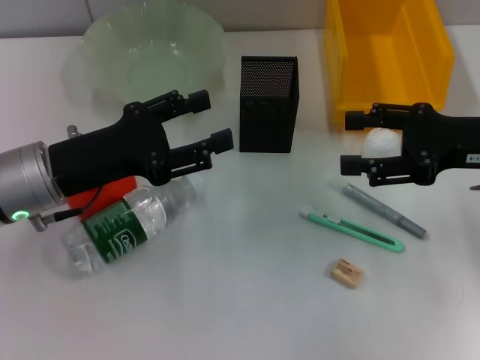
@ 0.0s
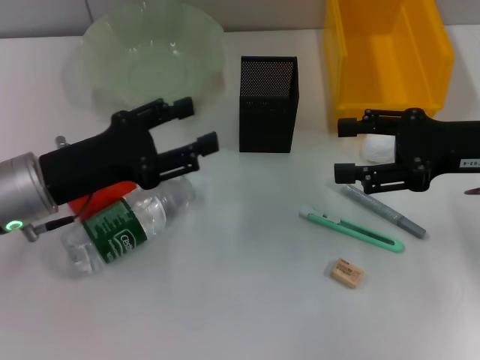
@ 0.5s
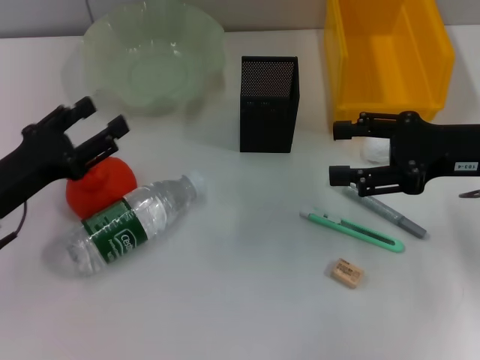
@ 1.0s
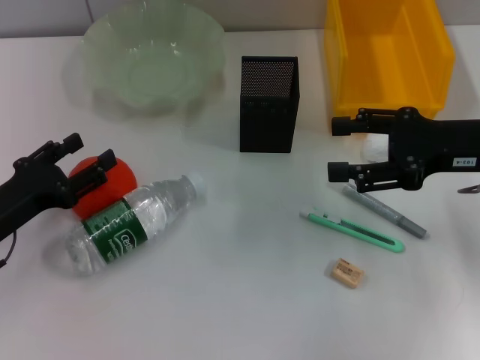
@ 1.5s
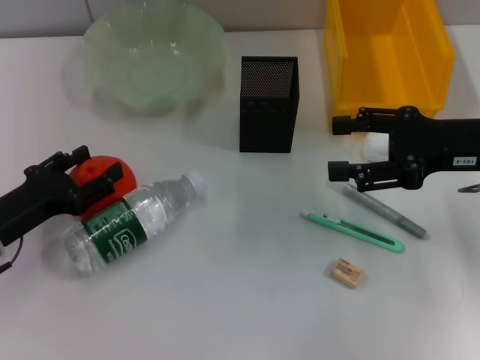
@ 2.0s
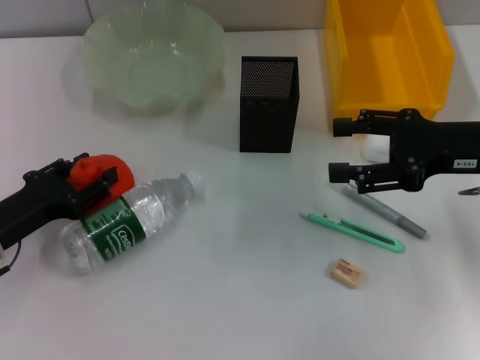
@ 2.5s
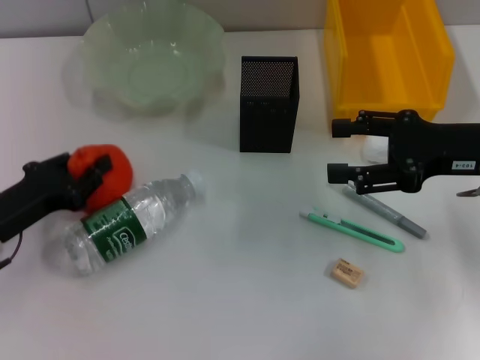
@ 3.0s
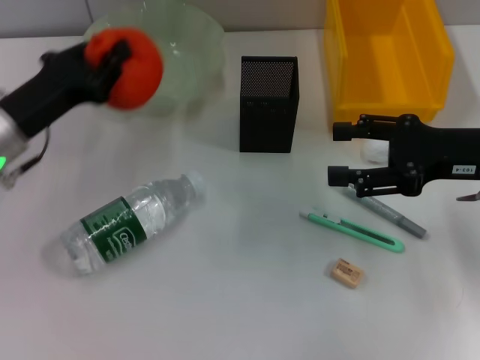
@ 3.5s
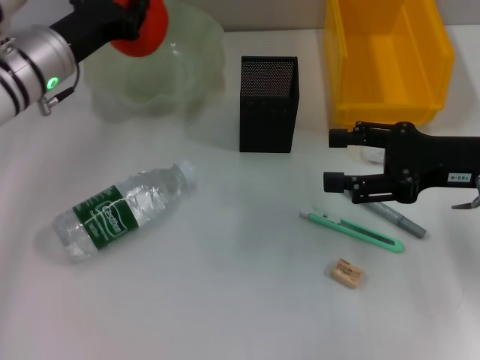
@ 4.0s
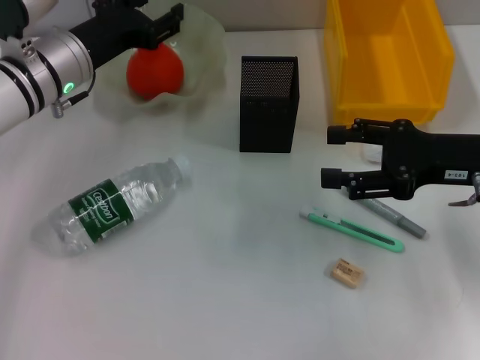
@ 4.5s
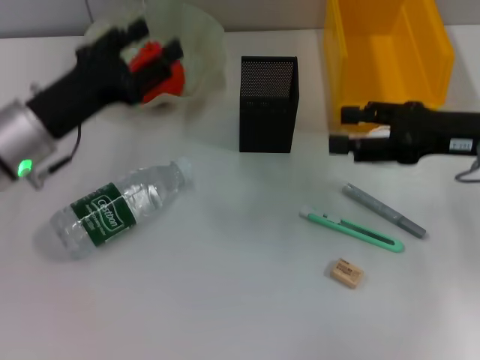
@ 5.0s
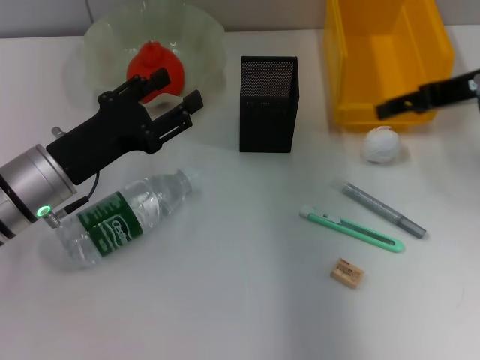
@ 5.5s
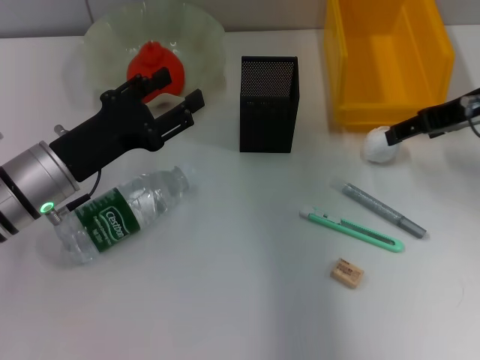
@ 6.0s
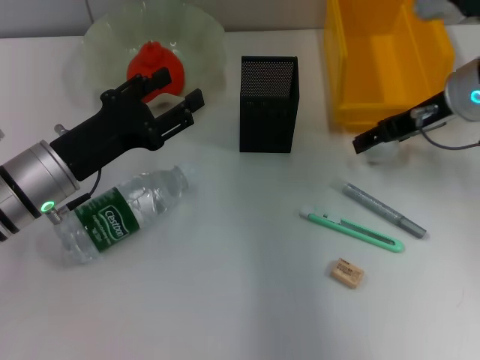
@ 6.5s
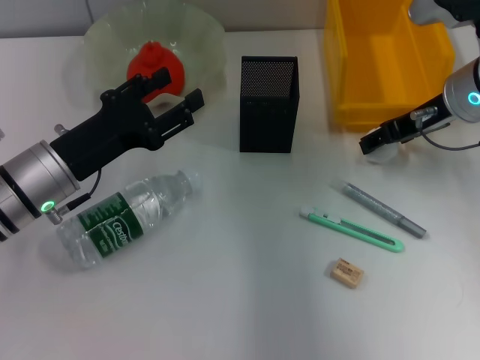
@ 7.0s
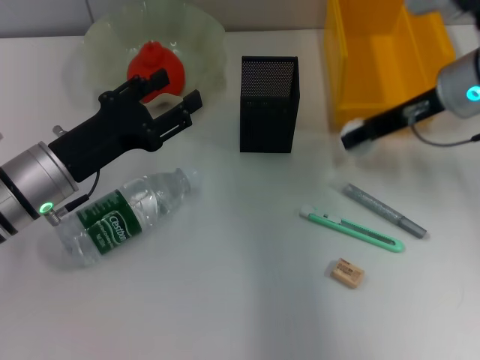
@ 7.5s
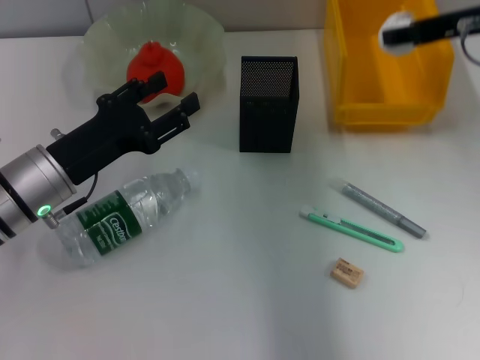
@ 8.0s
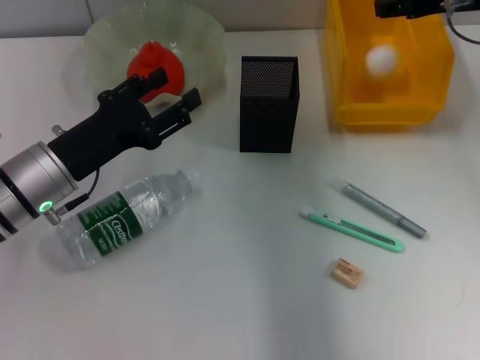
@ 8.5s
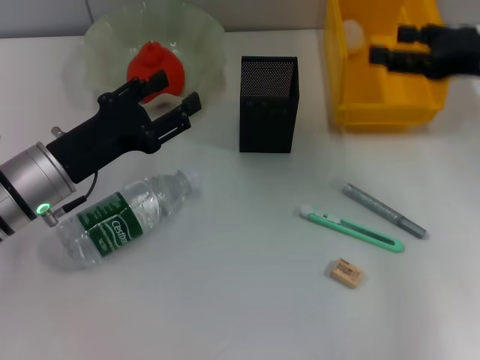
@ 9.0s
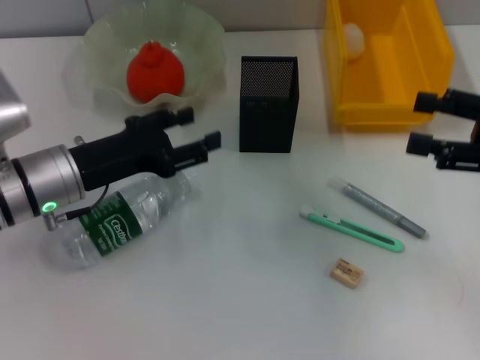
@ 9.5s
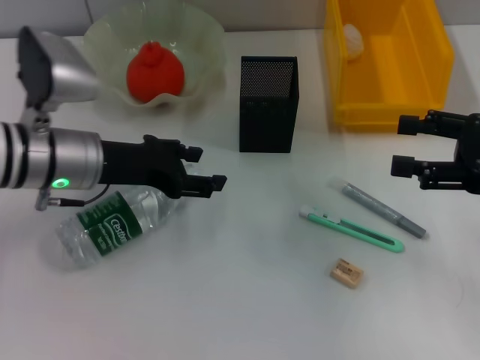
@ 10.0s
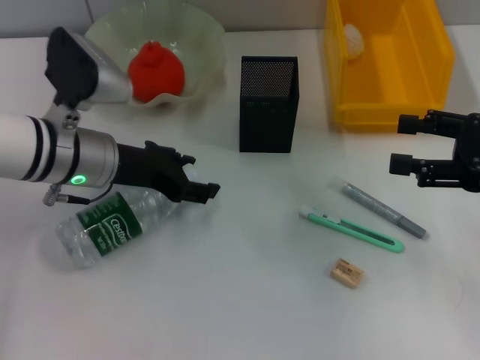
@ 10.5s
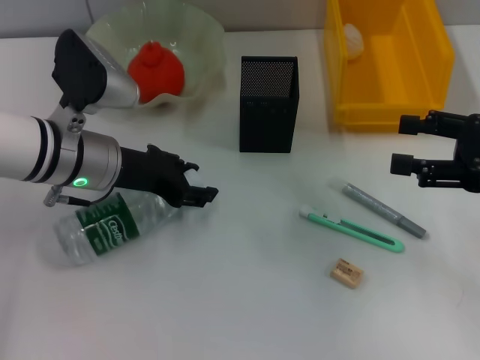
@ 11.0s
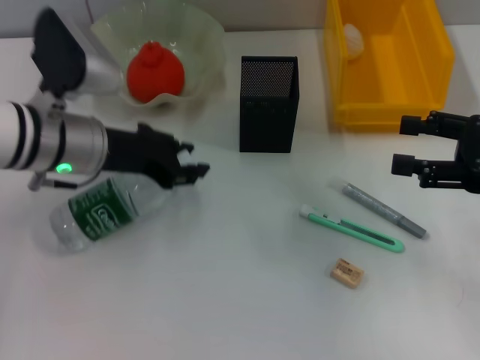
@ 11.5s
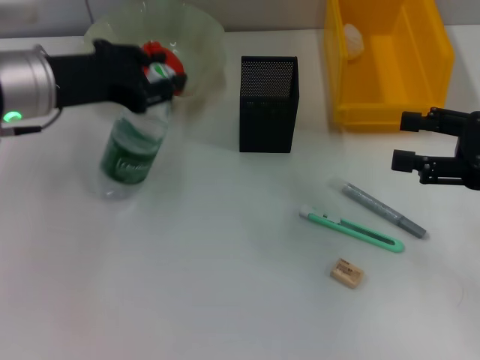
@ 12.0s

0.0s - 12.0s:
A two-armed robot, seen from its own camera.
Step, 0.0s - 2.5s: Grab the orange with the left hand.
Step, 3.0s - 4.0s: Place the orange into the fruit bowl with the left hand.
Step, 4.5s - 7.0s: Grab the paper ball with the right hand.
Step, 7.5s - 8.5s: Place the paper ball into the trash can with the right hand.
Step, 9.0s - 11.0s: Grab the water bottle with the left hand.
0.0s - 2.0s: The left gripper shifts about 10 cm to the left and downward.
2.0s - 4.0s: The left gripper is displaced forward, upward and to the right by some 20 cm, and closes its fingers.
4.0s - 6.0s: The left gripper travels backward by approximately 10 cm, and opens up. Meanwhile the right gripper is displaced forward and upward by approximately 10 cm.
6.0s - 8.0s: The right gripper closes its fingers.
8.0s - 10.0s: The right gripper travels backward, downward and to the right by roughly 15 cm, and opens up; the left gripper moves about 5 cm.
10.0s - 12.0s: The left gripper heads upward, covering about 5 cm, and closes its fingers.

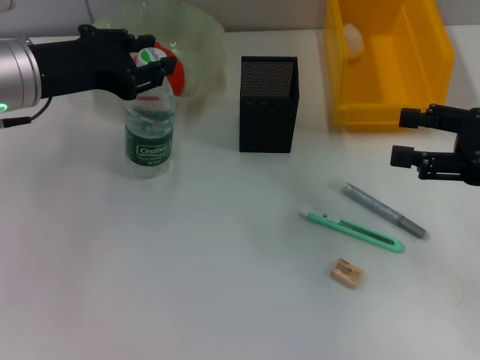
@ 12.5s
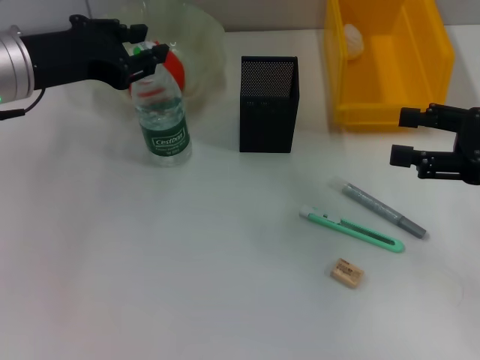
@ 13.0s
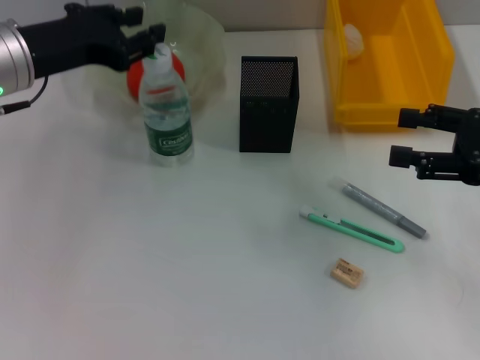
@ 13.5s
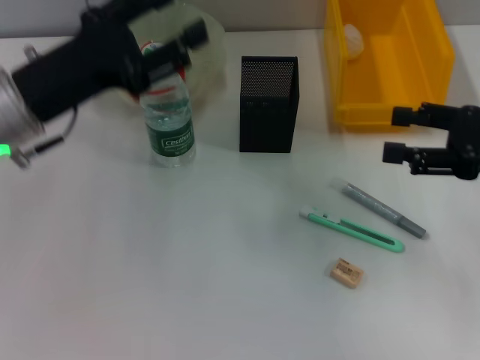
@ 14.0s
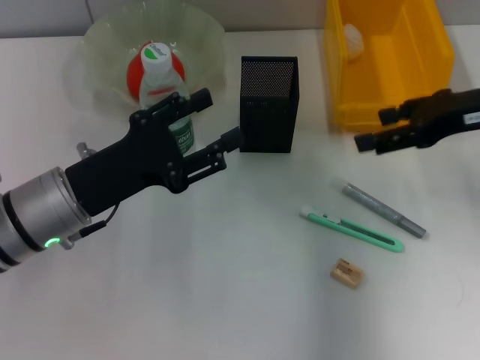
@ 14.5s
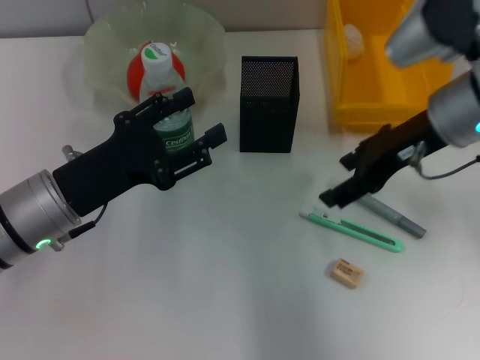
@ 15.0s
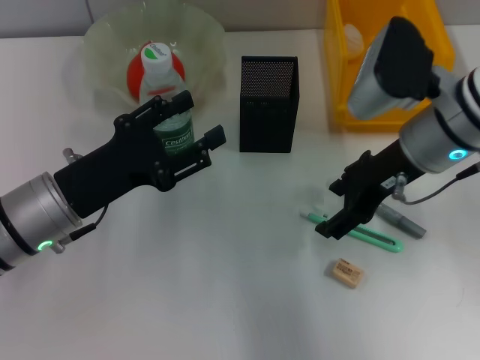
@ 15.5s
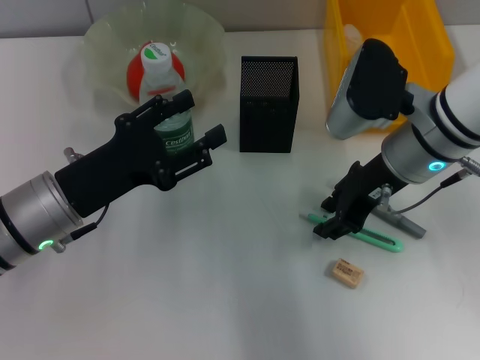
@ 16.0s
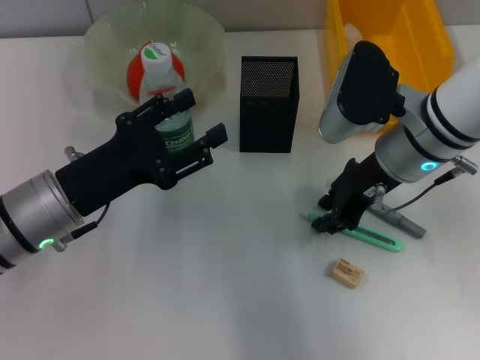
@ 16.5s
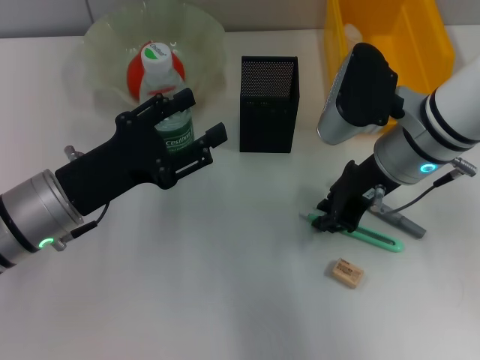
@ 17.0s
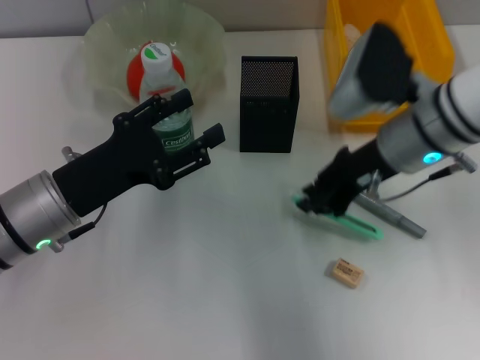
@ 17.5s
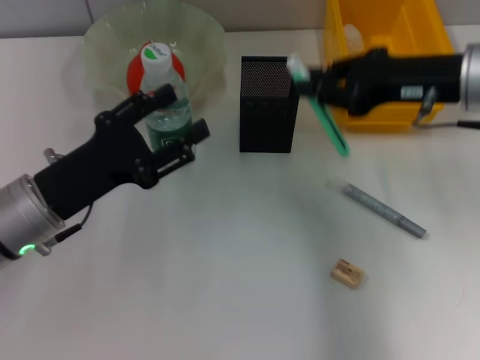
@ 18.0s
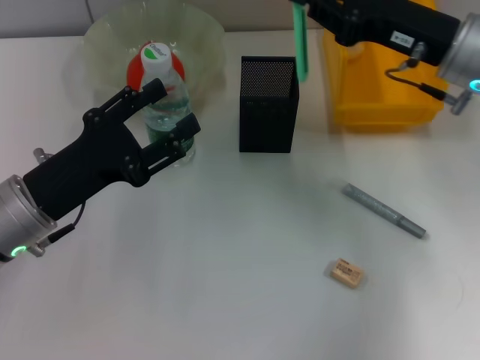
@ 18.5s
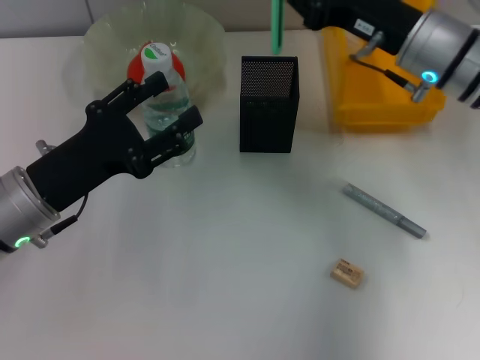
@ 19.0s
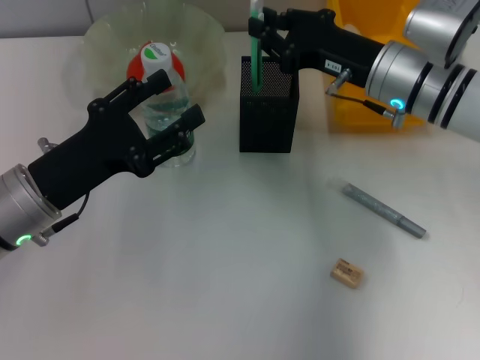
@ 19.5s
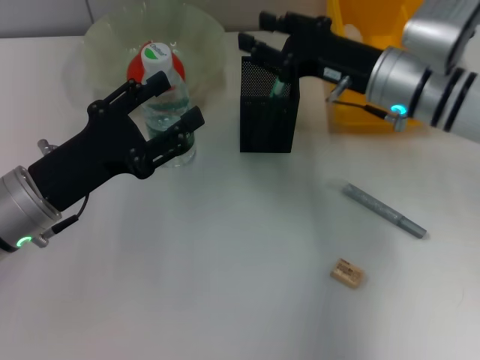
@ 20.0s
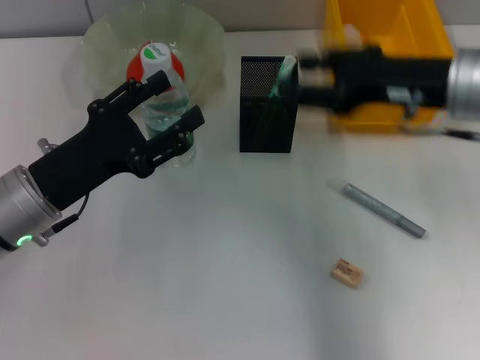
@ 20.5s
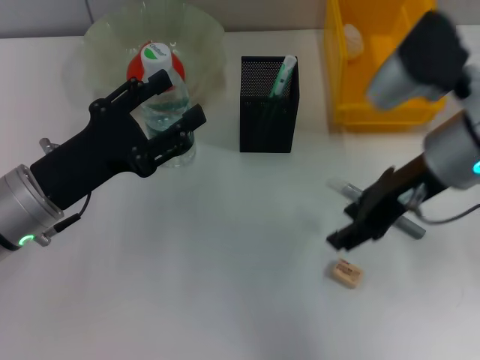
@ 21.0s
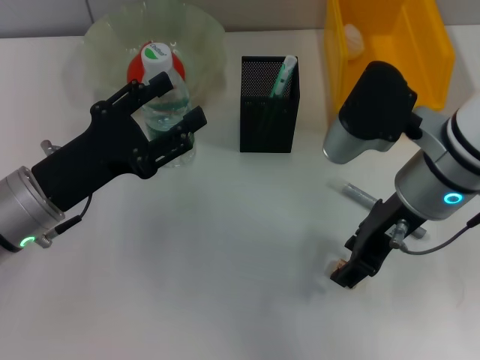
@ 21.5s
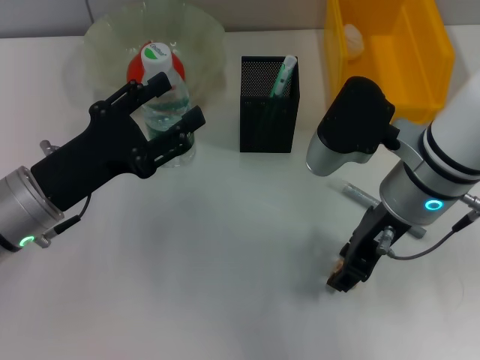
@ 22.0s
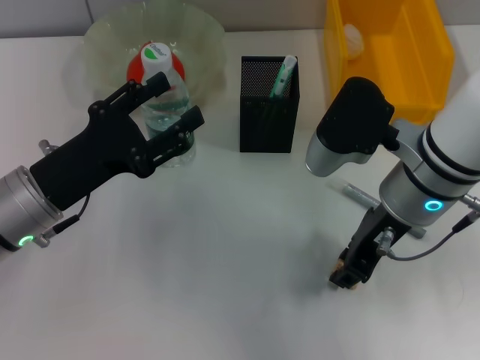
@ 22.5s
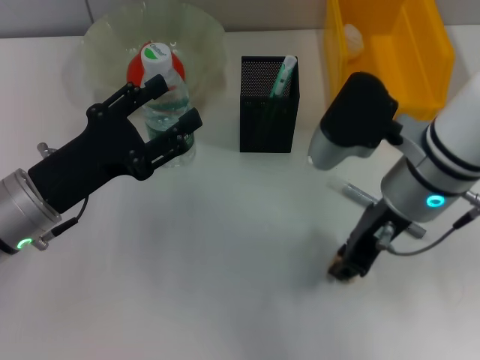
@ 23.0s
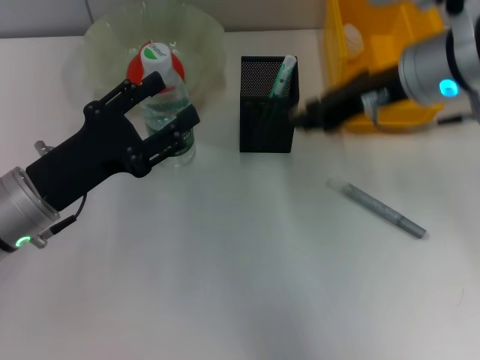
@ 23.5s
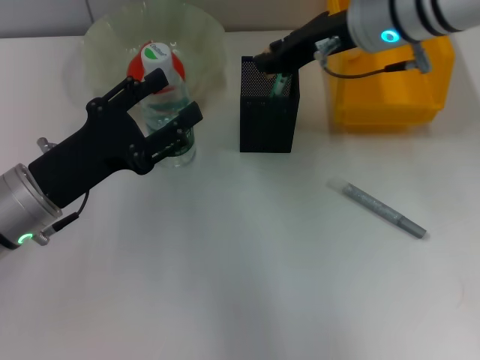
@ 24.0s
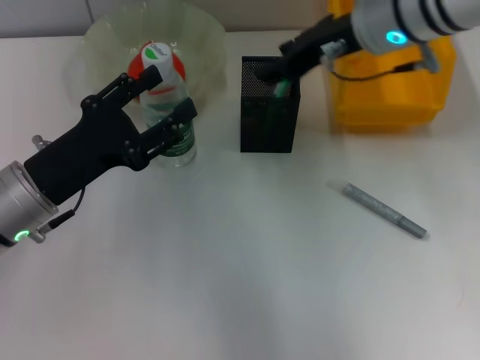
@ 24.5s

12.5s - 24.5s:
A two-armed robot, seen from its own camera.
Step, 13.5s - 17.0s: Grab the blue utility knife with the right hand.
Step, 17.5s - 19.5s: Place the blue utility knife into the pen holder with the right hand.
Step, 20.0s - 22.0s: Grab the eraser with the right hand.
Step, 22.5s - 24.0s: Put the eraser into the pen holder with the right hand.
12.5s - 14.5s: The right gripper shifts some 10 cm to the left, forward and upward, while the left gripper heads downward and backward, covering approximately 15 cm, and opens its fingers.
14.5s - 16.5s: The right gripper heads to the left and downward, covering some 15 cm, and closes up.
16.5s - 18.5s: The right gripper moves to the right, some 5 cm, and closes up.
18.5s - 20.5s: The right gripper opens.
20.5s - 22.5s: The right gripper shifts approximately 5 cm to the left.
22.5s - 24.5s: The right gripper goes roughly 10 cm forward and upward.

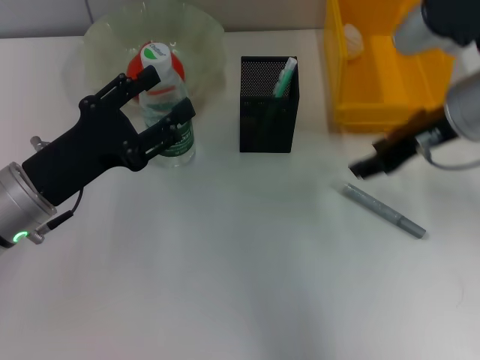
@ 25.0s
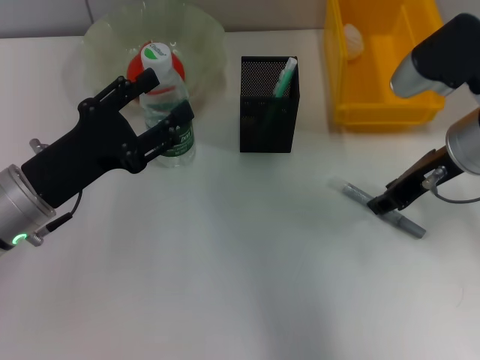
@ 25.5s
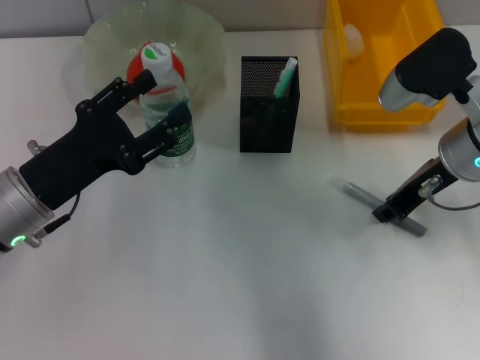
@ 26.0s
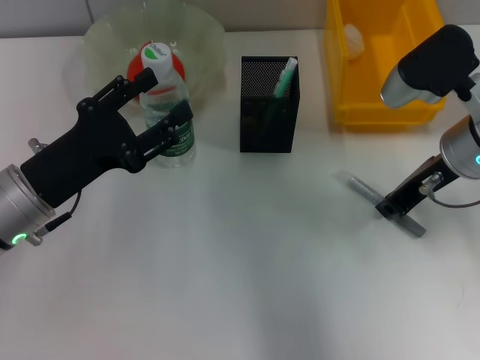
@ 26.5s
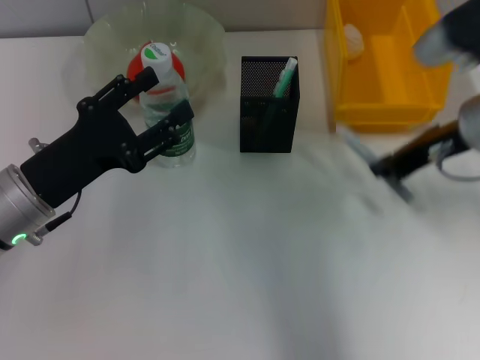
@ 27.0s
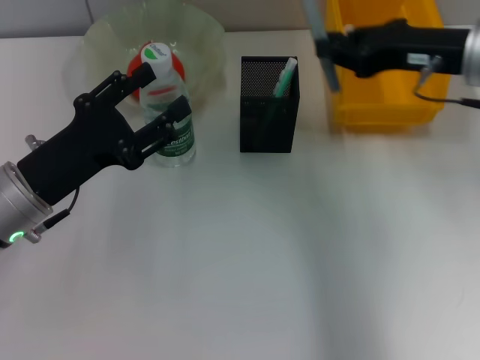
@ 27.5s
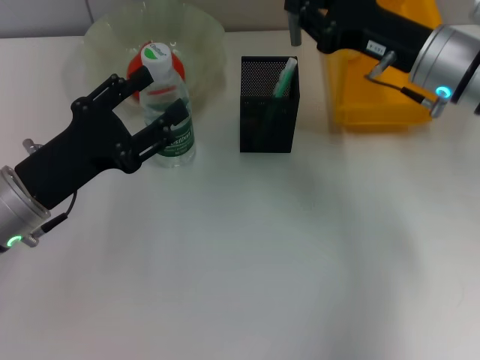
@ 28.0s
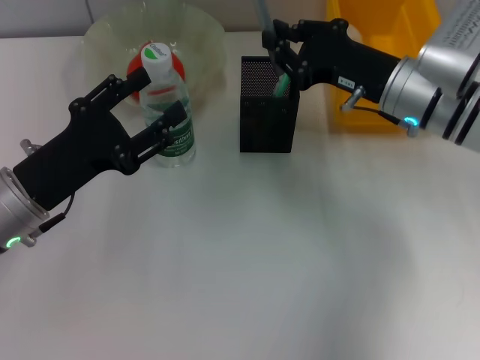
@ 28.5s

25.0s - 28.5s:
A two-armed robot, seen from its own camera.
Step, 25.0s - 26.5s: Grab the gray glue with the right hand.
25.0s - 27.0s: The right gripper closes up.
27.0s - 28.5s: The right gripper goes some 5 cm downward.
